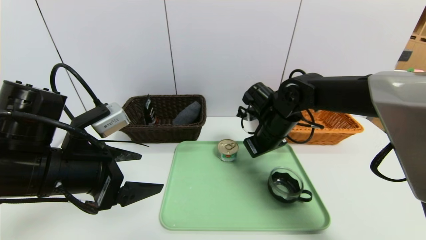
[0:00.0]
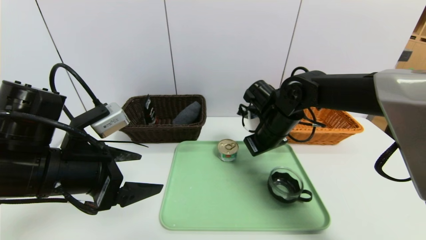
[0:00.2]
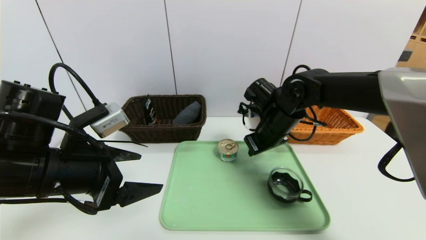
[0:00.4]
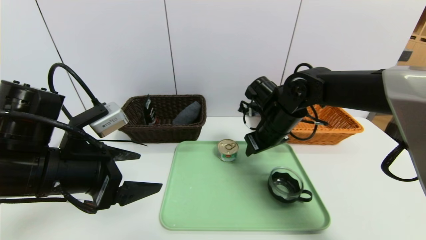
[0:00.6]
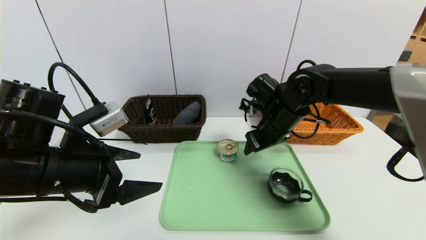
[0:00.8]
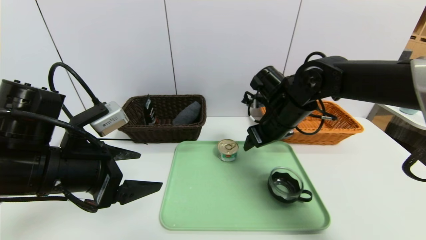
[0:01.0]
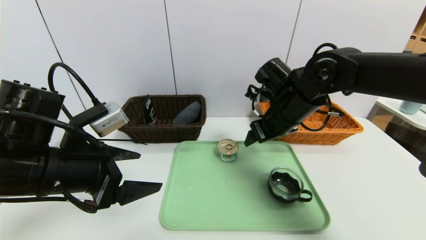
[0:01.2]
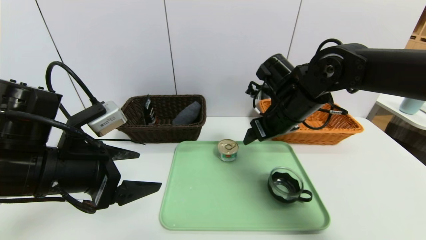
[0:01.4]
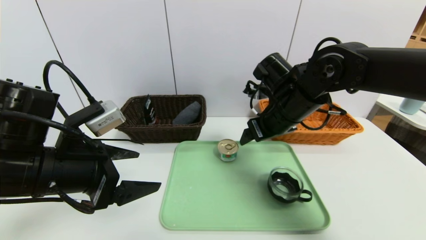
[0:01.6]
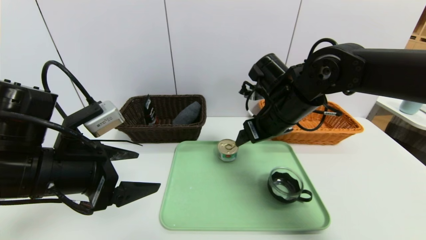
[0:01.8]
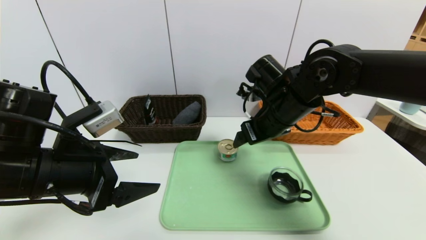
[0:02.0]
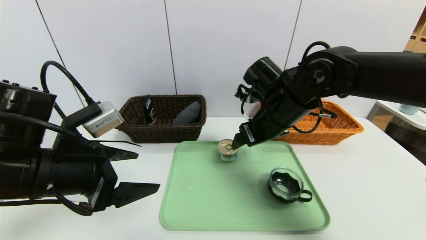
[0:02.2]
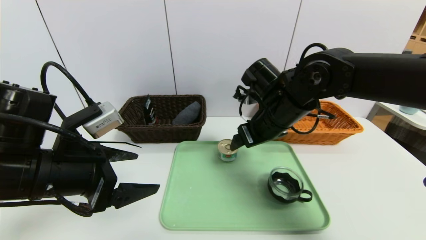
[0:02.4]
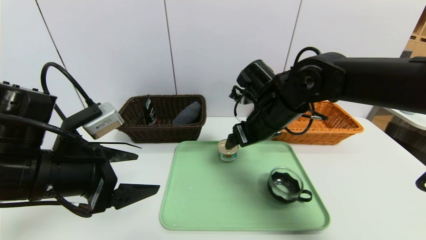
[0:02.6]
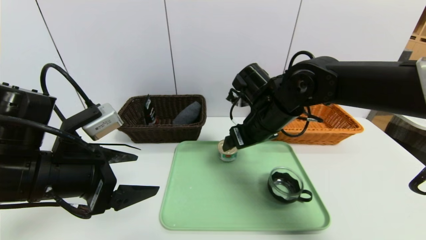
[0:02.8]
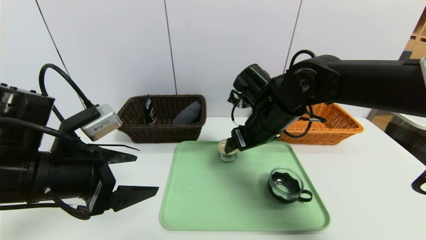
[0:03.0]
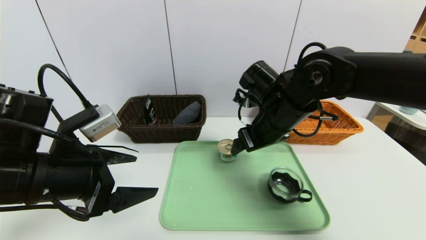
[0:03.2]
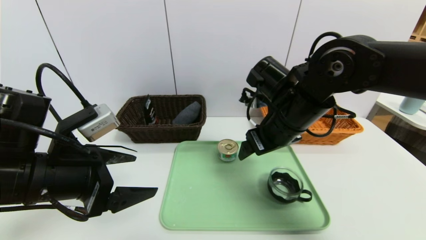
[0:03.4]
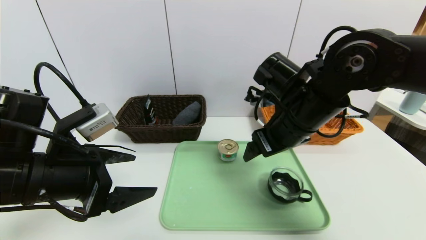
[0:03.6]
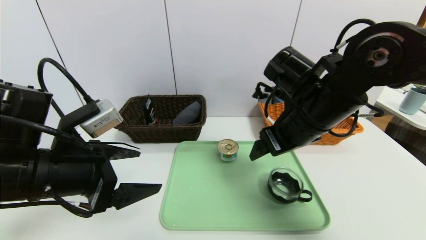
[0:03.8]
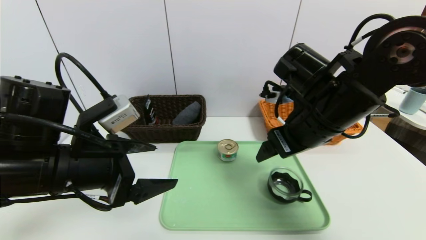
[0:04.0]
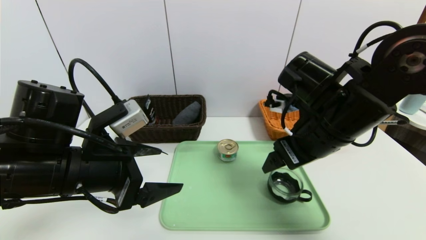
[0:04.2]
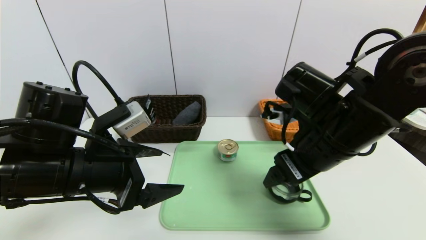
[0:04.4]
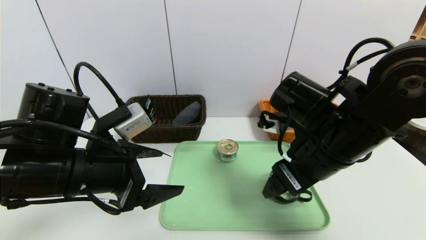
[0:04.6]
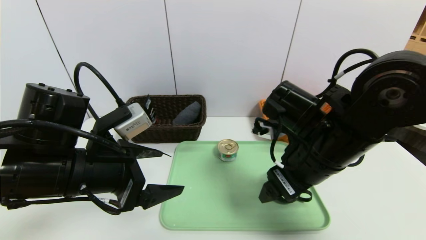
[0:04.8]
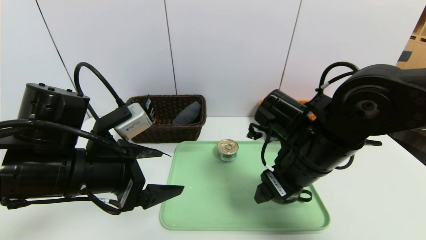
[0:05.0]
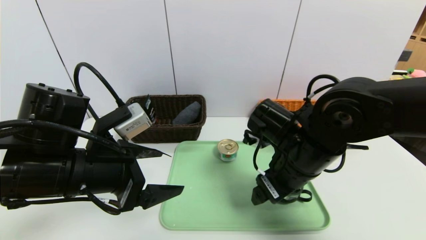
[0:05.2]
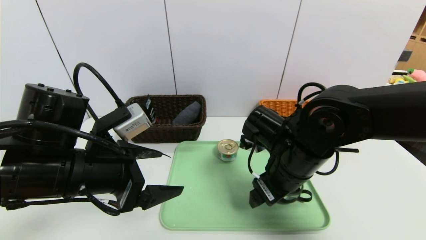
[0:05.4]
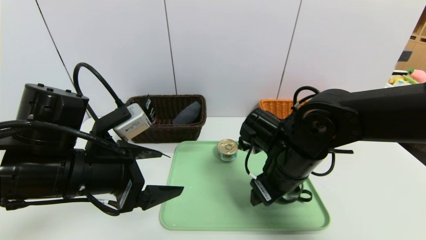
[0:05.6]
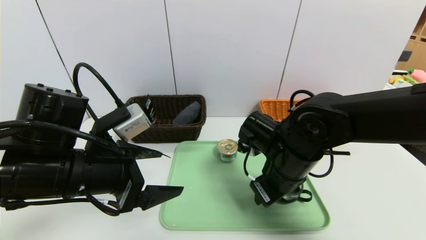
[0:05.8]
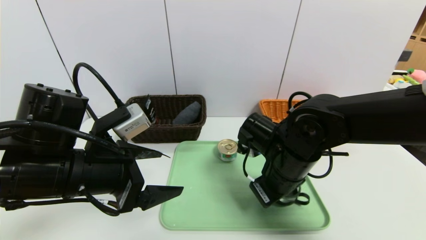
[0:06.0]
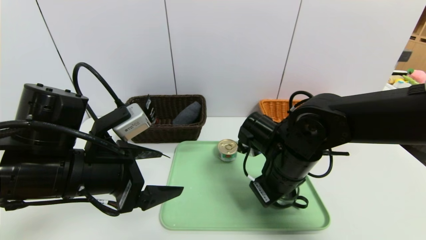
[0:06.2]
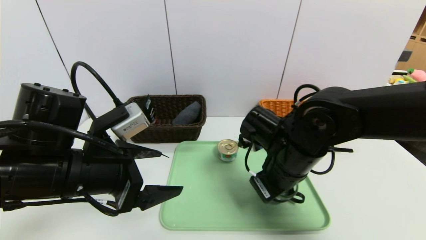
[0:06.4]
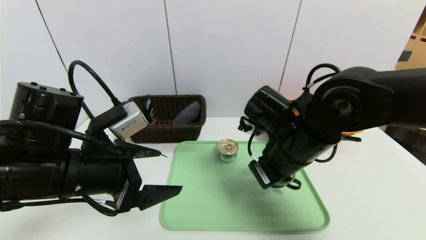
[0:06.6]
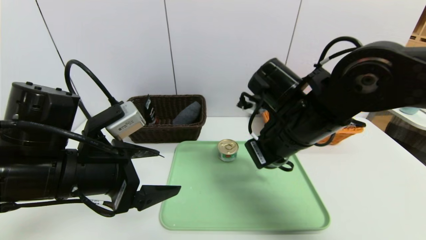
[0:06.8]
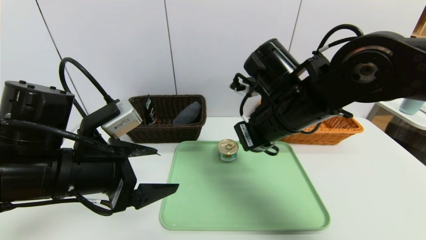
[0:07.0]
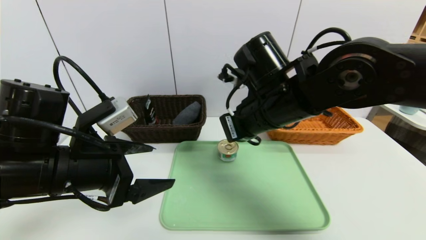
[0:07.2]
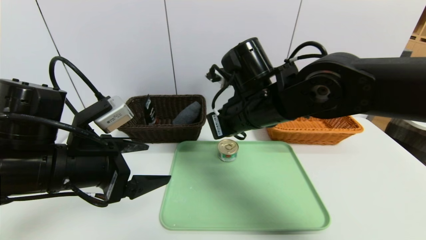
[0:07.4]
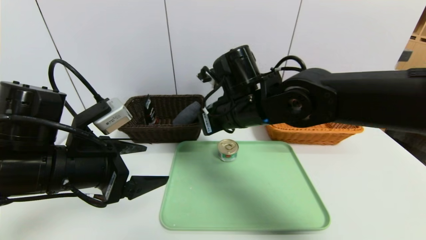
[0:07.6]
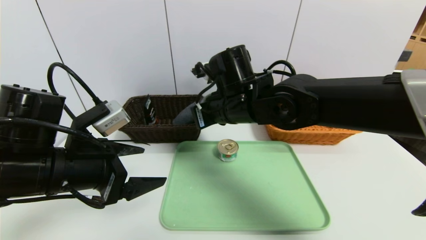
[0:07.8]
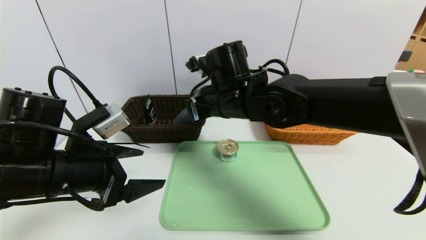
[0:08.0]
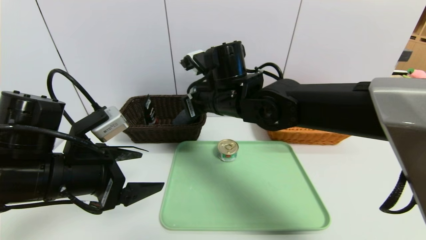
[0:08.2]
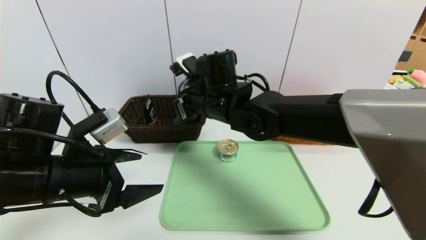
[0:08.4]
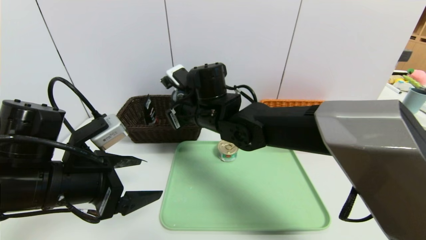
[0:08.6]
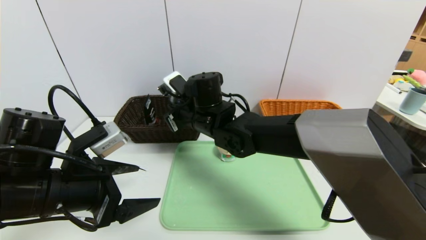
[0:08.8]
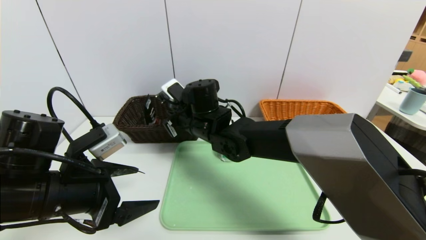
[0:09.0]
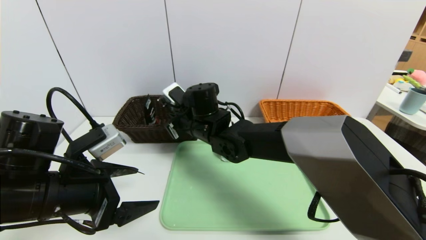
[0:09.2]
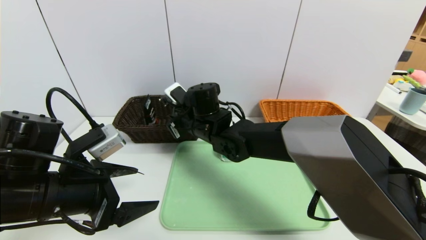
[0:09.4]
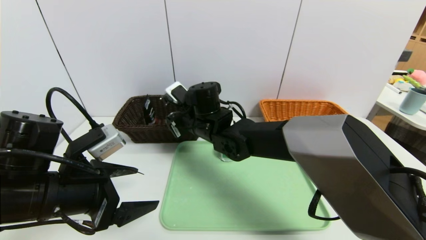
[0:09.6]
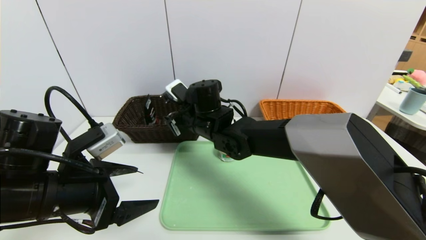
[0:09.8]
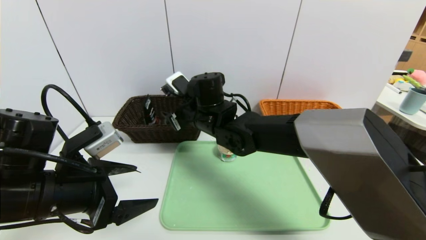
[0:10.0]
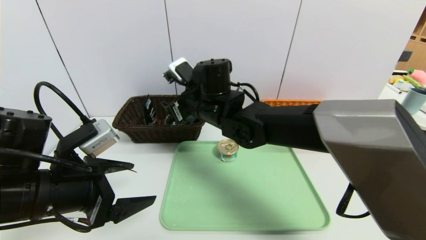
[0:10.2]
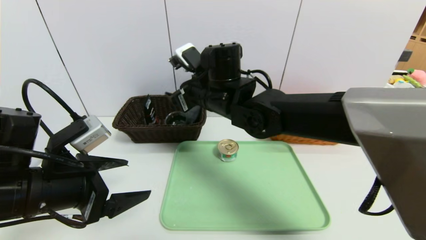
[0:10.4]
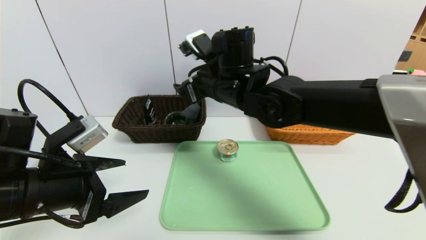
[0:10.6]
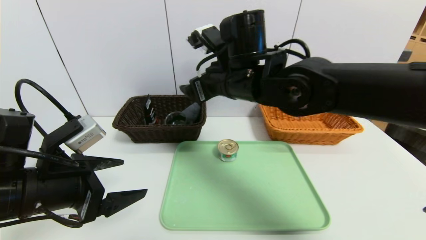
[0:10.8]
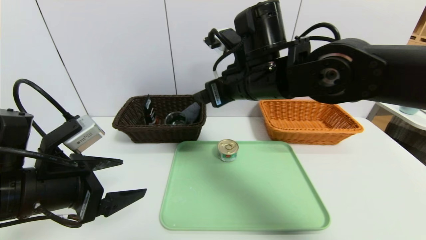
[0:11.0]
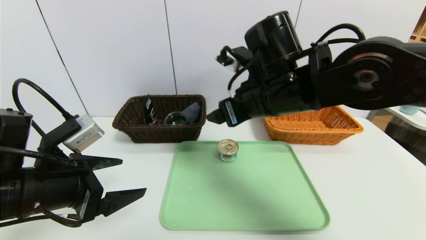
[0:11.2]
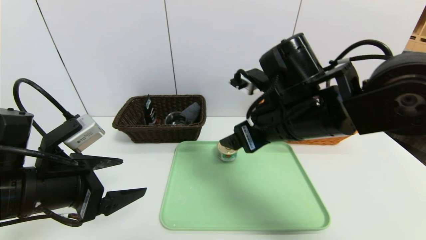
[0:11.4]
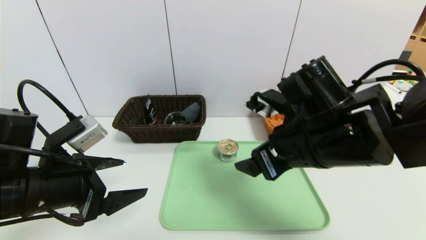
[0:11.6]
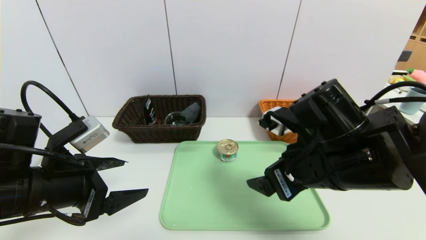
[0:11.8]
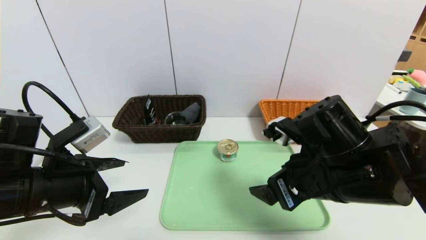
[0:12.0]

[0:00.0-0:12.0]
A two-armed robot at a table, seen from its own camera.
Task of the whole recording: place the food in the right basket with the right gripper, and place the non food items in the left basket with the left gripper.
Step, 0:00.0 to 0:11.0: Grasp the black glass cup and put it in the left basket.
0:00.0 to 0:01.6: The right gripper heads upward, covering roughly 5 cm, and opens its fingers.
0:01.6 to 0:03.0: There are only small adjustments of the grippers.
0:03.0 to 0:04.4: The right gripper heads backward, covering approximately 10 cm.
0:04.4 to 0:06.0: The right gripper heads downward, covering about 10 cm, and closes its fingers.
0:06.0 to 0:07.6: The right gripper is displaced upward and to the left by about 10 cm.
0:07.6 to 0:09.0: The right gripper heads to the left and downward, covering approximately 10 cm.
0:09.0 to 0:10.4: The right gripper goes some 10 cm upward, and opens.
0:10.4 to 0:12.0: The right gripper is displaced backward and to the right by approximately 20 cm.

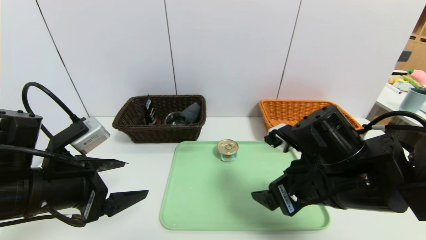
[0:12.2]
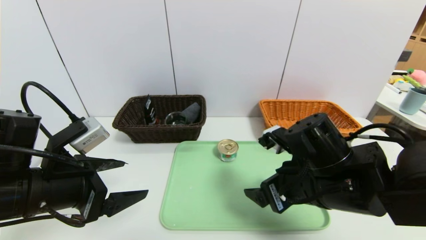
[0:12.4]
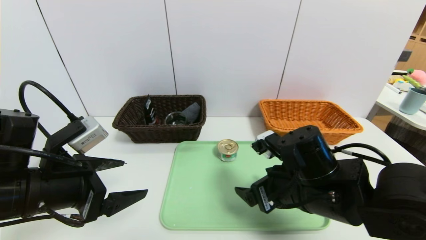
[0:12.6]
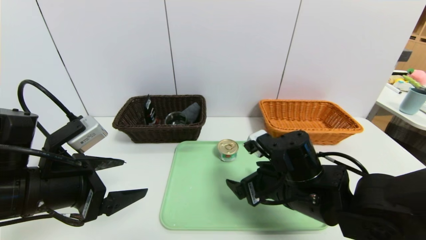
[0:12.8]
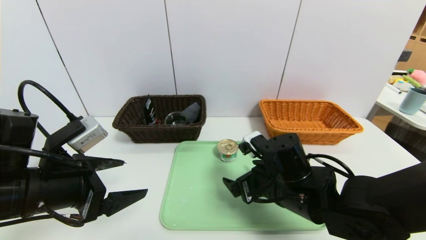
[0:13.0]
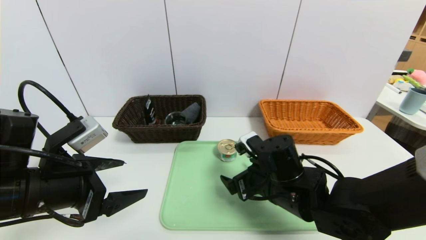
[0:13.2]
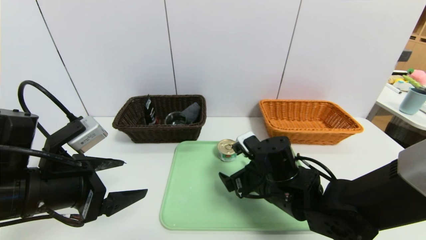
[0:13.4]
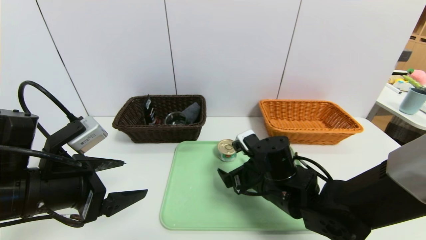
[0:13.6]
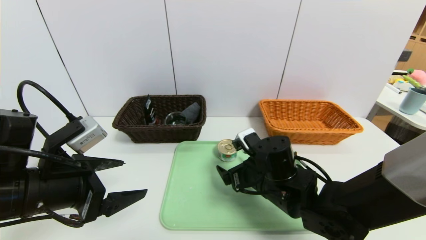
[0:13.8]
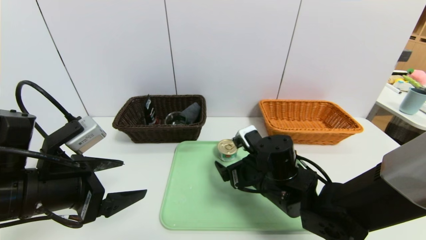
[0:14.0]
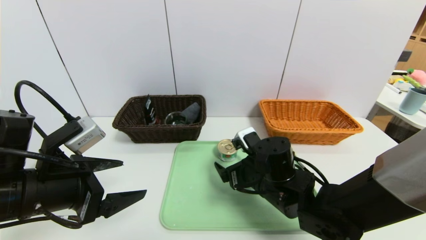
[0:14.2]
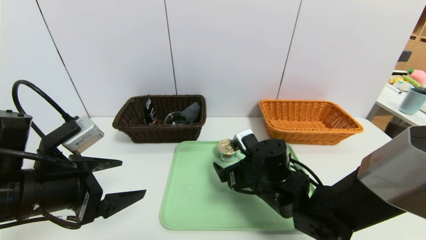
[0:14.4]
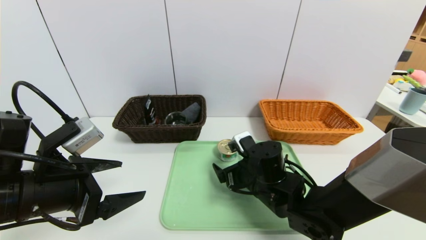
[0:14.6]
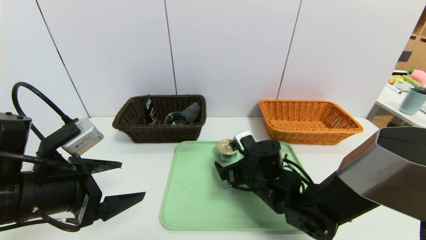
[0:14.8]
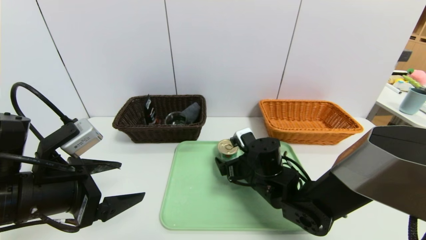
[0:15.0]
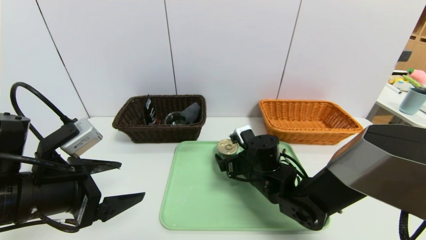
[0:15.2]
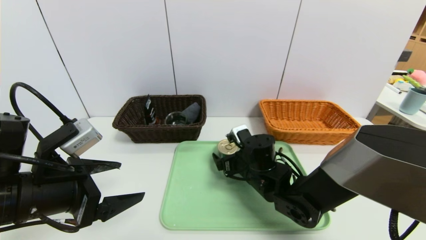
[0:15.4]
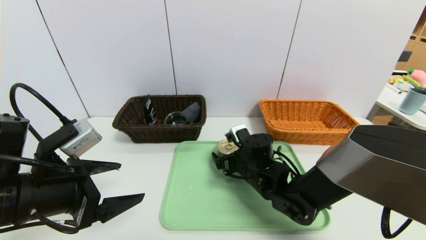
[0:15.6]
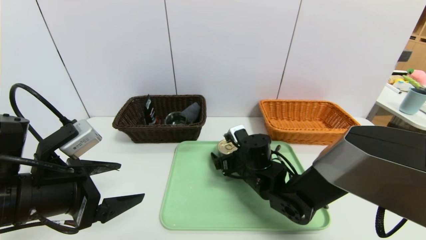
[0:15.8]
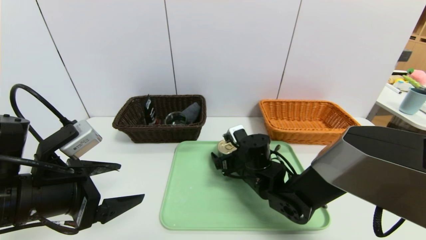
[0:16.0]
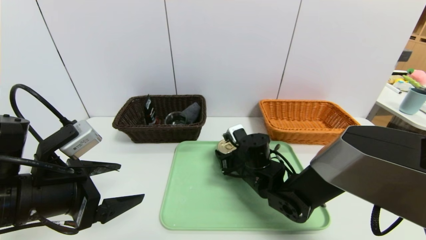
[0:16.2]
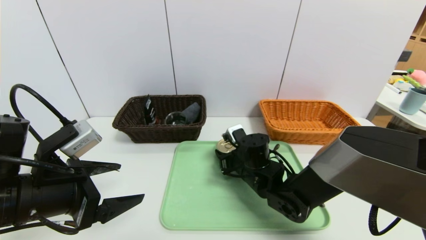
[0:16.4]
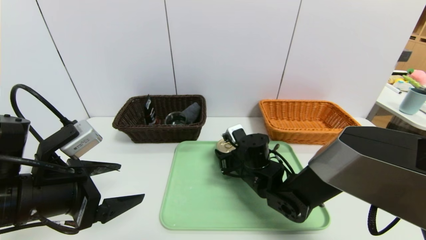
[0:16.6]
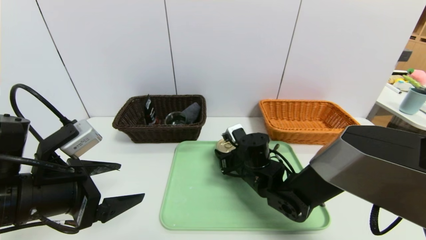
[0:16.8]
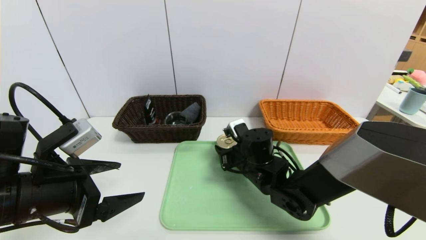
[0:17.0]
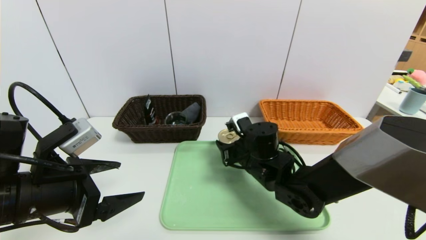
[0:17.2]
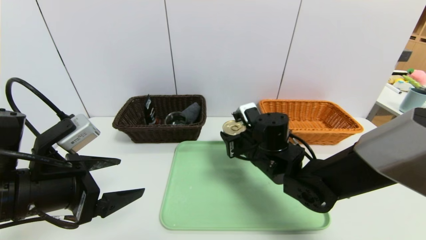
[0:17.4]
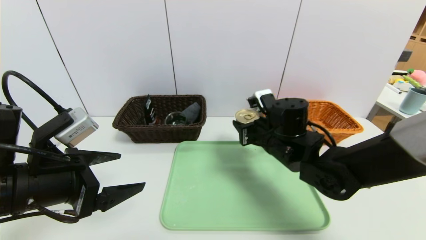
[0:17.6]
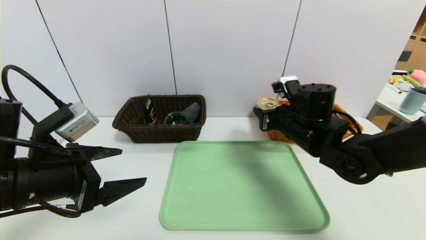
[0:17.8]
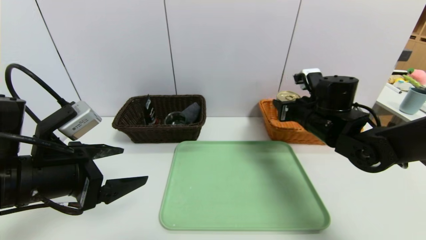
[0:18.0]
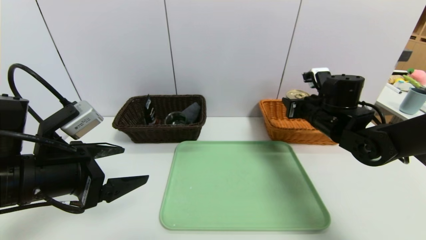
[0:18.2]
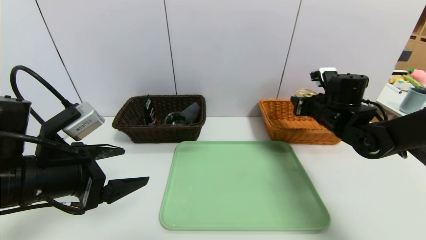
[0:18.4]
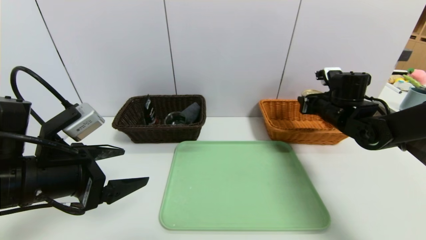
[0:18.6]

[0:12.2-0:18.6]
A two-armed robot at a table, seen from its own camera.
Task of the whole recording: place the food in the right basket with the right gripper, and place the non food items in the left basket with the left gripper.
0:12.2 to 0:13.8: The right gripper goes approximately 10 cm downward, forward and to the left.
0:13.8 to 0:15.4: The right gripper goes some 5 cm forward.
0:15.4 to 0:17.0: The right gripper closes.
0:17.0 to 0:18.6: The right gripper is displaced to the right, upward and forward by some 25 cm.
